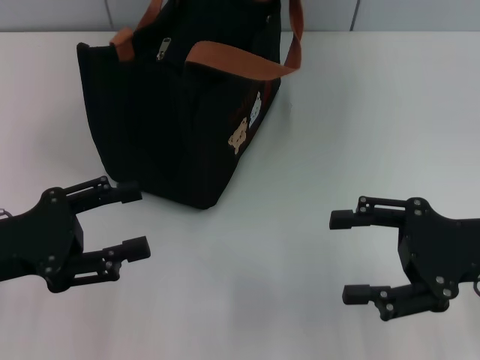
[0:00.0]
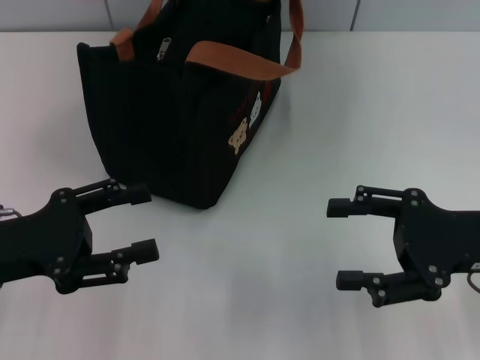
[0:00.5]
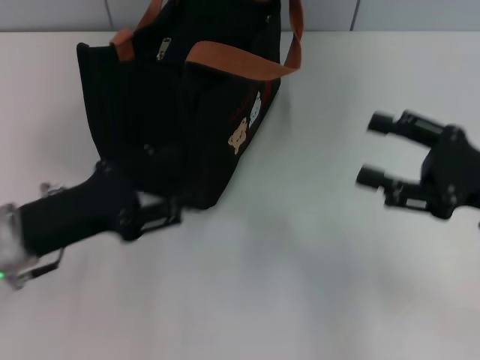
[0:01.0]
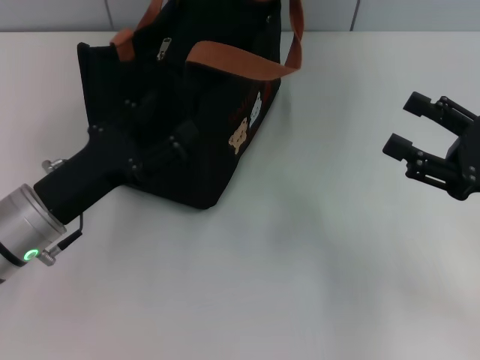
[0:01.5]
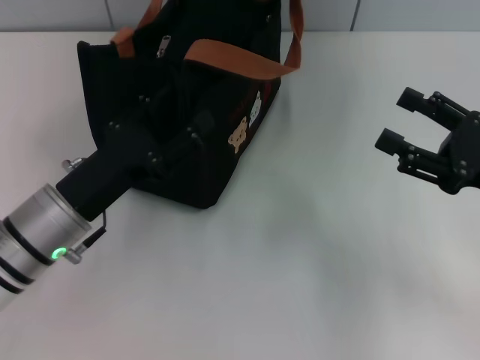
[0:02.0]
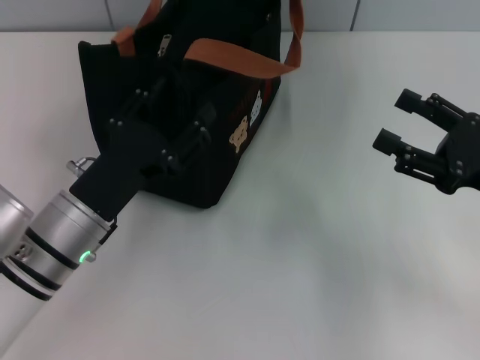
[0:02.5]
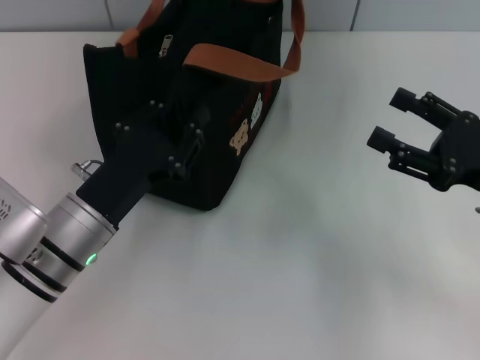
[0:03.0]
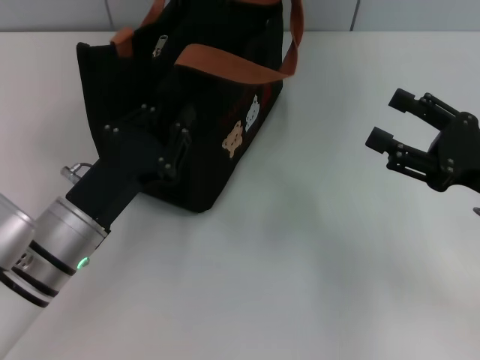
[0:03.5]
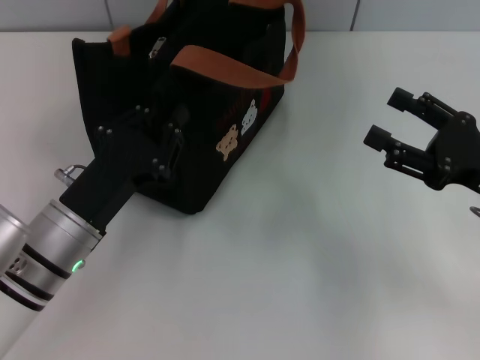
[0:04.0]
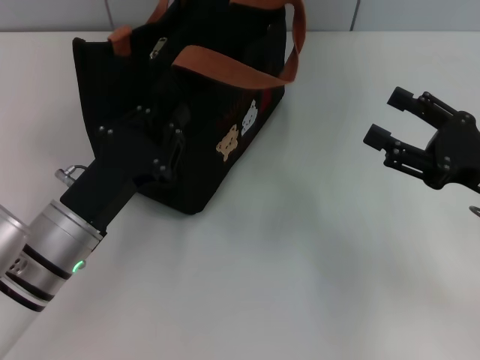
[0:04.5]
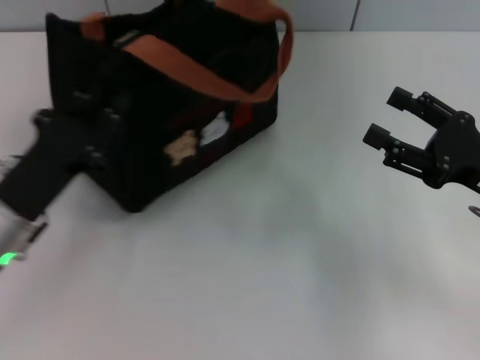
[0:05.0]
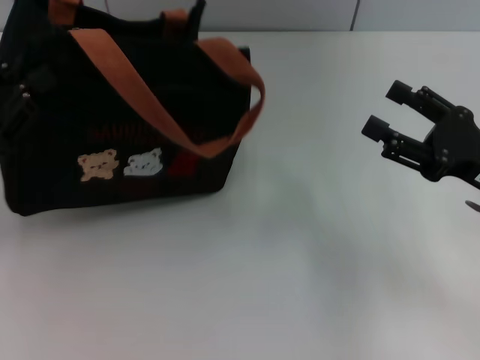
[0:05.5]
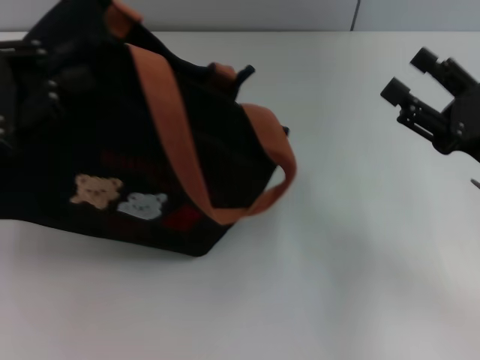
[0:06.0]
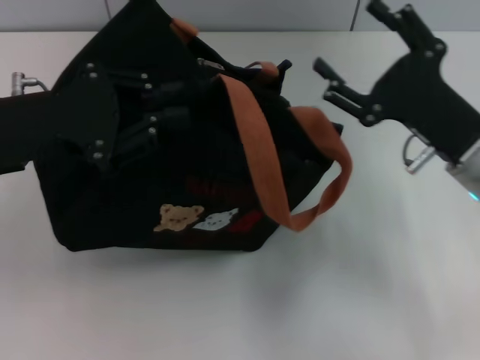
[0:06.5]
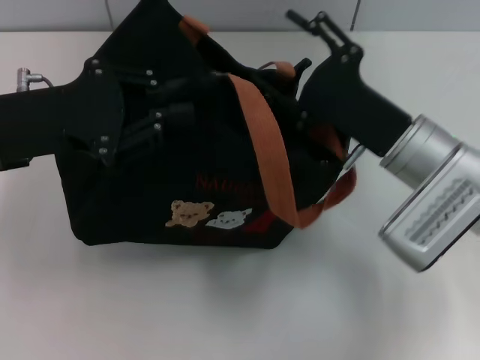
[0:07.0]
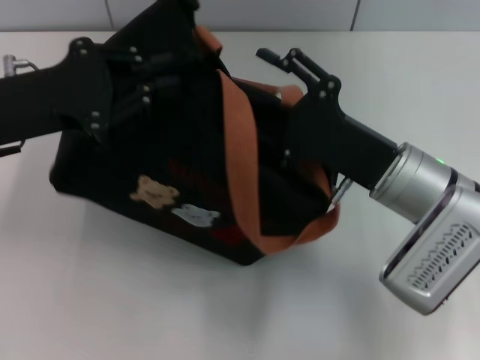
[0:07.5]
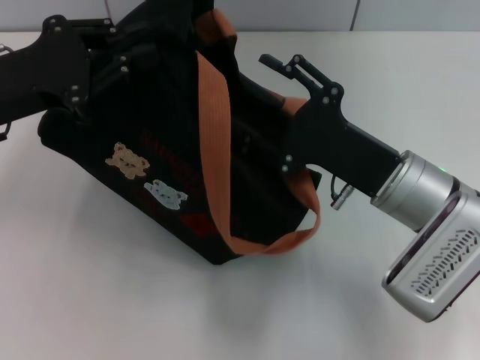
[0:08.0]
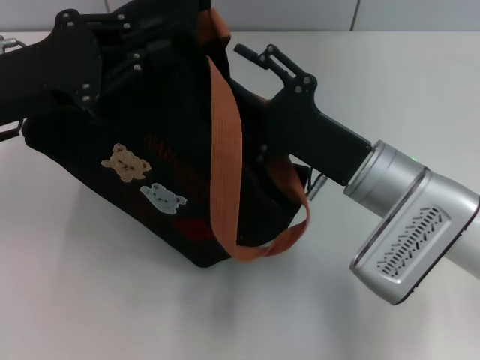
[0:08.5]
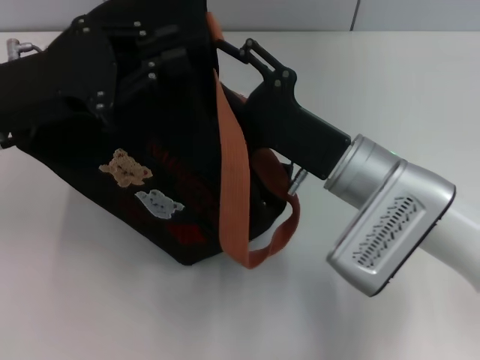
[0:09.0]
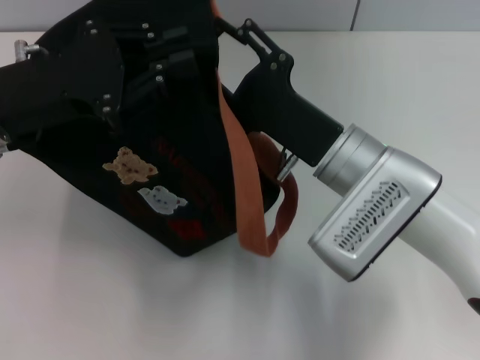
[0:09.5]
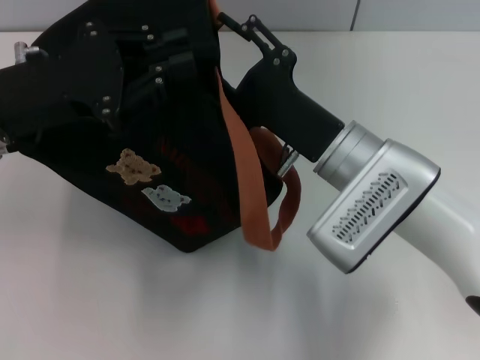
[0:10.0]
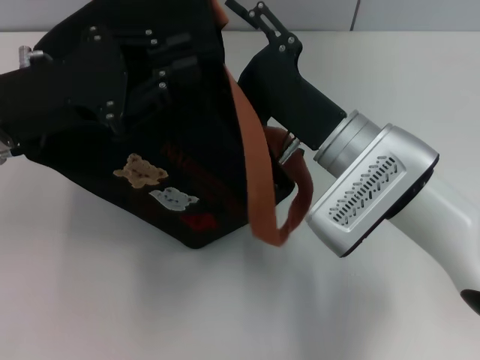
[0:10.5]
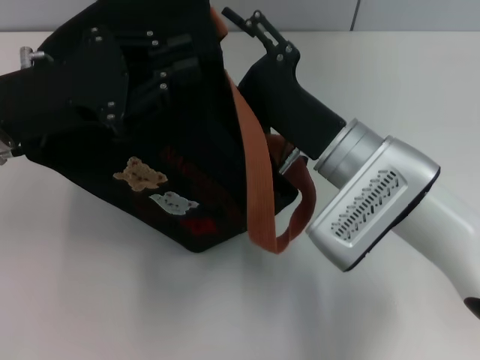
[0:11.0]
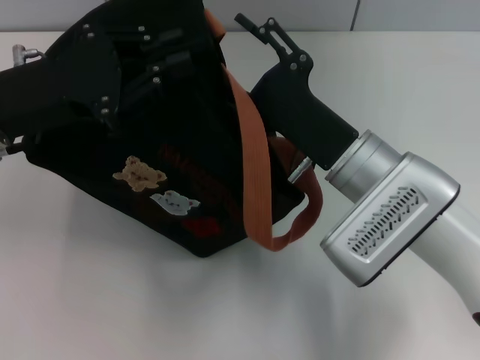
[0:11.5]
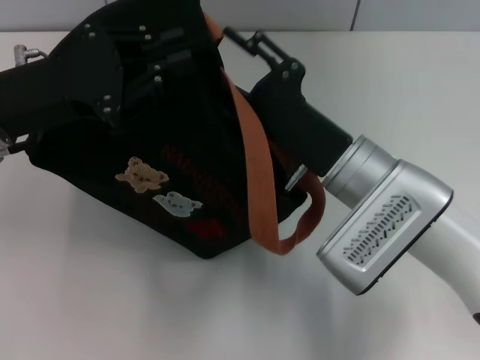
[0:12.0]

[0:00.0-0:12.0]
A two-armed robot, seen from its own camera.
0:00.0 to 0:02.0: The left gripper heads to the right, covering approximately 10 cm.
0:02.0 to 0:04.0: The left gripper closes.
0:04.0 to 0:06.0: The left gripper moves upward and to the left, roughly 20 cm.
0:06.0 to 0:08.0: The right gripper heads to the left, covering some 10 cm. Meanwhile the left gripper changes place by about 5 cm.
0:08.0 to 0:10.0: The right gripper goes some 5 cm to the left.
0:10.0 to 0:12.0: The grippers make only small movements.

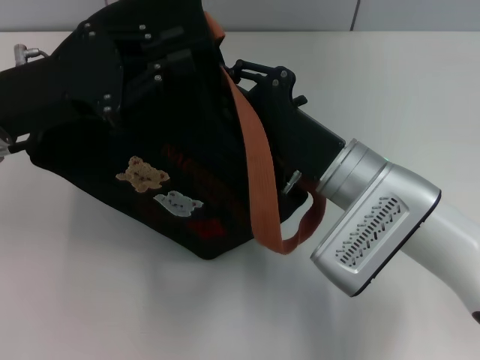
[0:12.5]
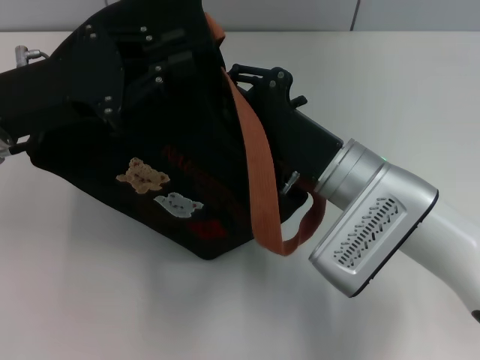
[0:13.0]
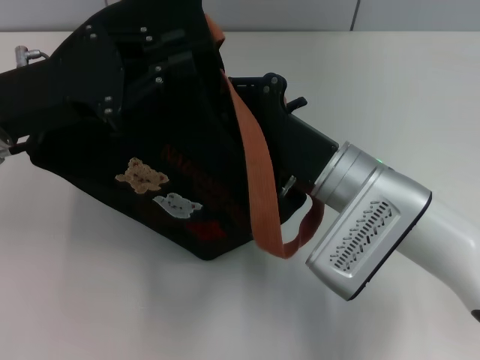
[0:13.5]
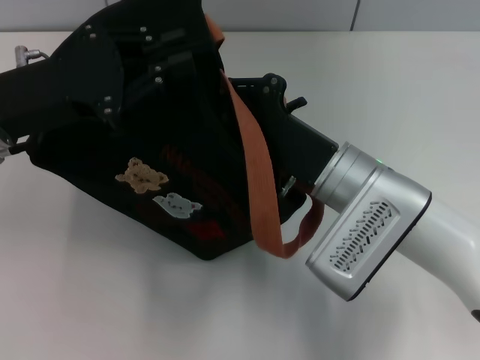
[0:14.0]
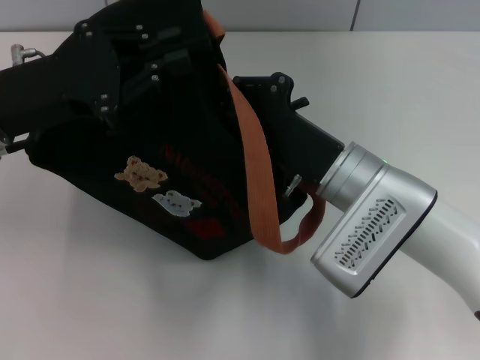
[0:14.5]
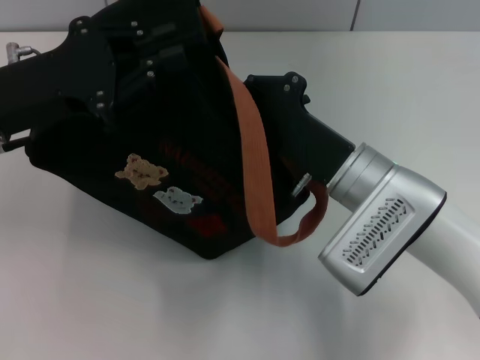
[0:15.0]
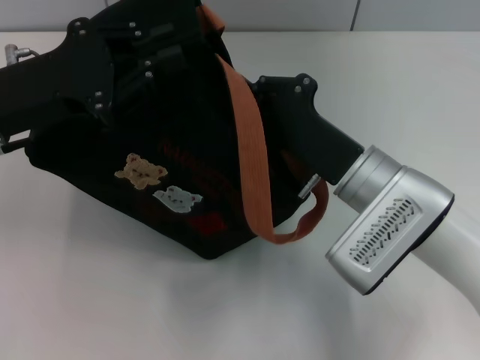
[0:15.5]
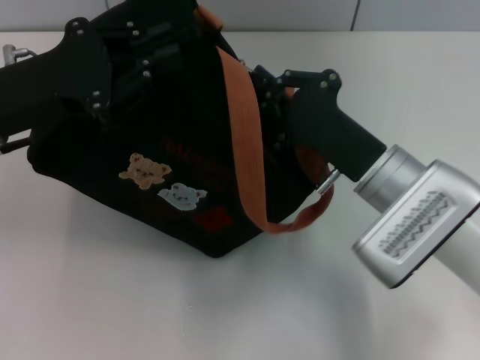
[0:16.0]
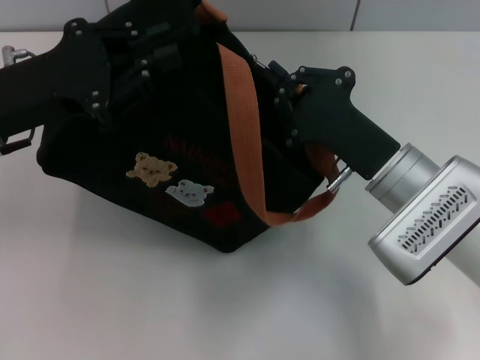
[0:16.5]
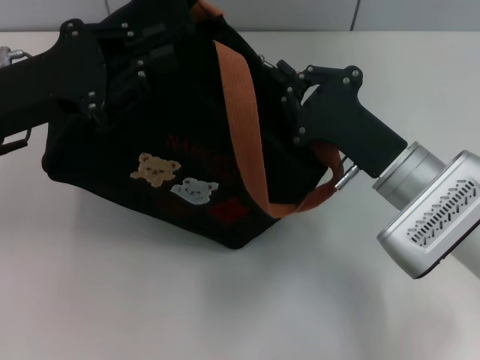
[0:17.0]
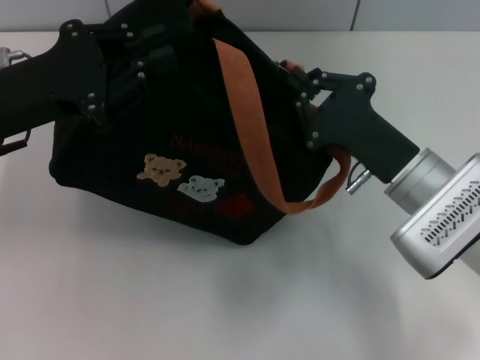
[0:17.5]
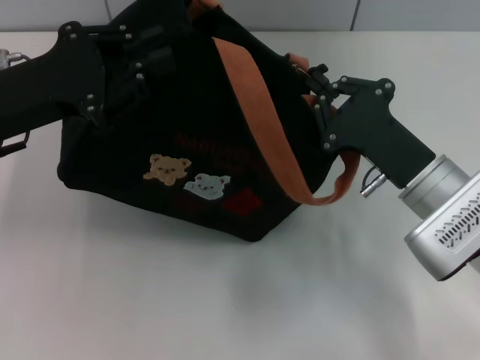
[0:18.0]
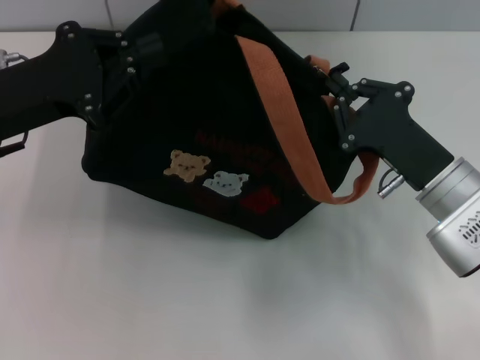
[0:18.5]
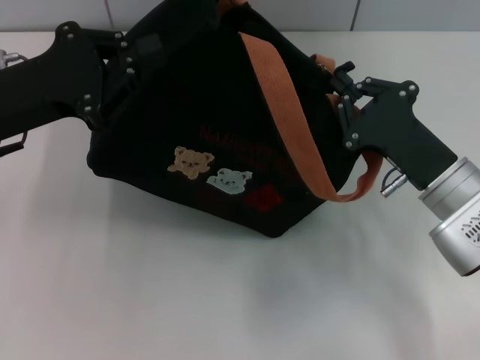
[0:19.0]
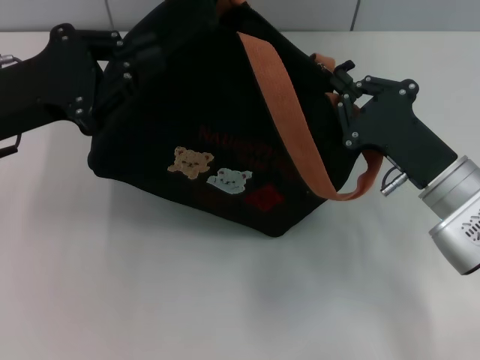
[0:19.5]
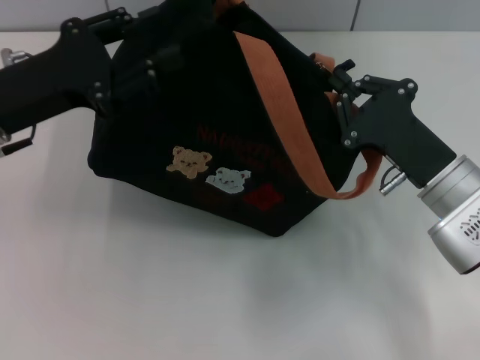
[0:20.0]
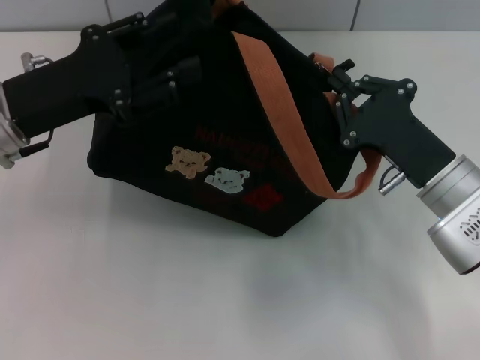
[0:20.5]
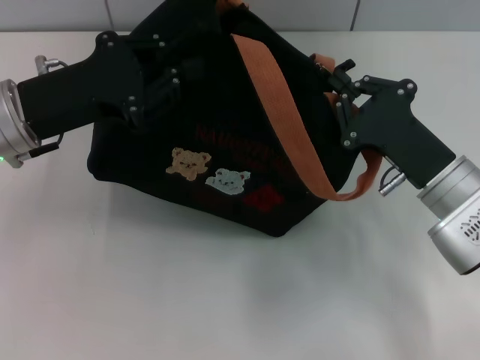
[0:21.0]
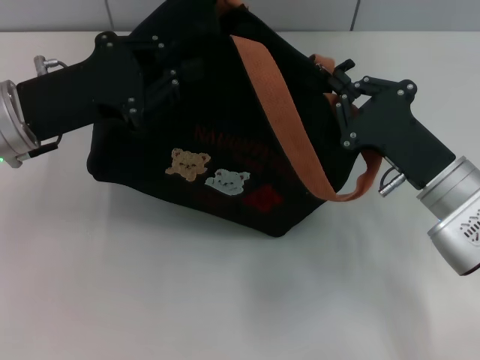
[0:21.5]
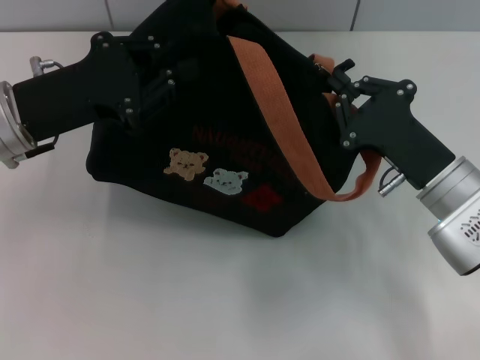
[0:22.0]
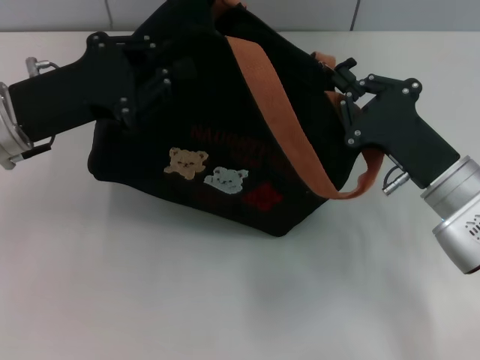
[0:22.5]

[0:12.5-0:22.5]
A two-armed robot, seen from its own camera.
0:12.5 to 0:14.5: The right gripper closes up.
0:16.5 to 0:18.5: The right gripper ends up roughly 5 cm from where it was.
0:18.5 to 0:20.5: The left gripper opens its fingers.
0:20.5 to 0:22.5: The left gripper closes its fingers.

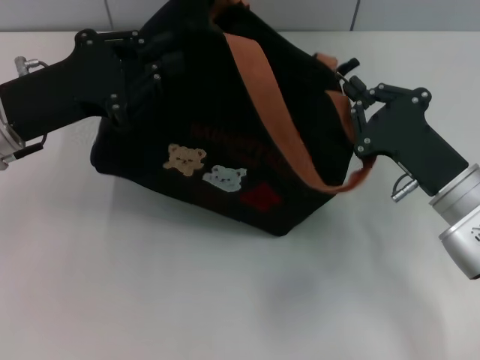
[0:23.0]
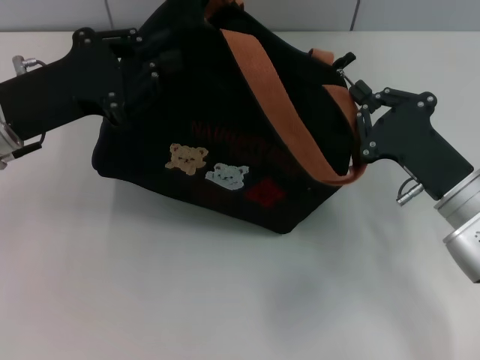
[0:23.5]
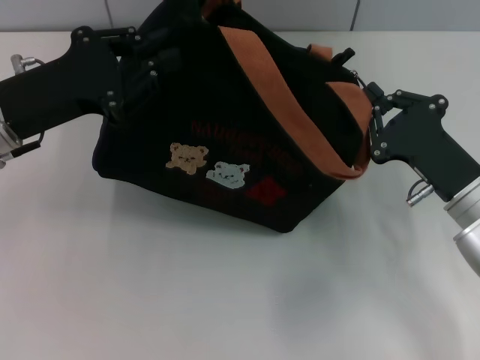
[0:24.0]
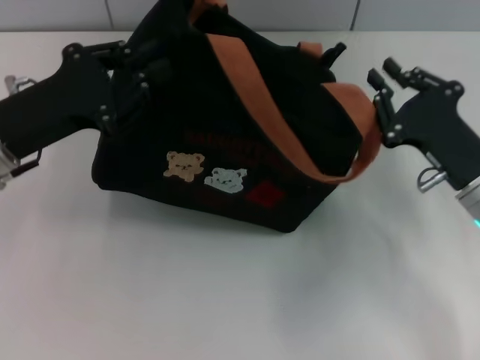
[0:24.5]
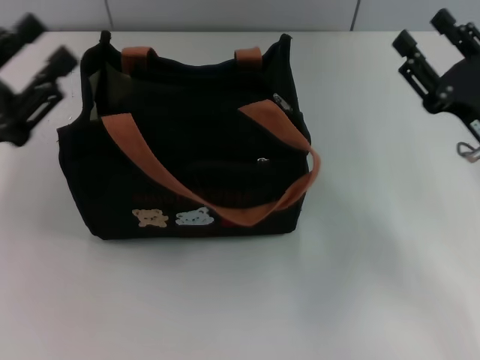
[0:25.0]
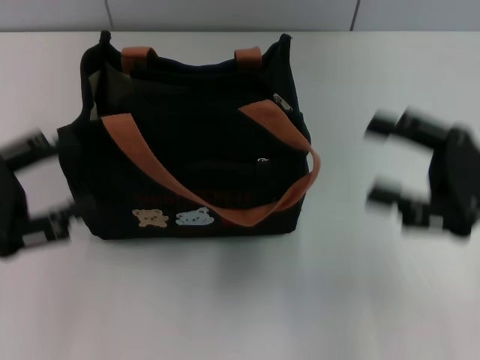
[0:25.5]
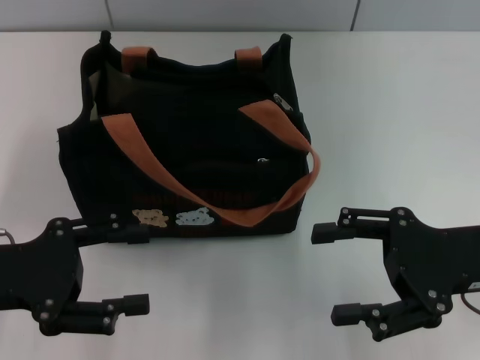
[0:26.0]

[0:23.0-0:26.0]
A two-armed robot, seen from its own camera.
0:23.0 to 0:24.5: The grippers stay close to where they were, moving slightly.
0:24.5 to 0:26.0: The left gripper moves backward, roughly 10 cm, and opens up, while the right gripper is displaced upward by roughly 5 cm, and opens.

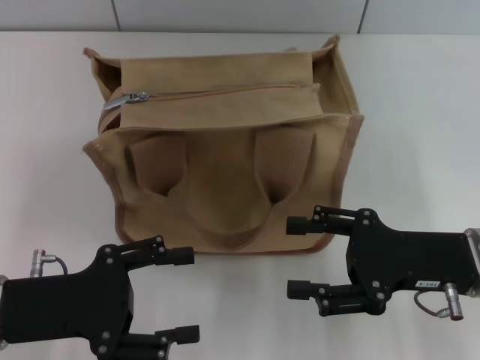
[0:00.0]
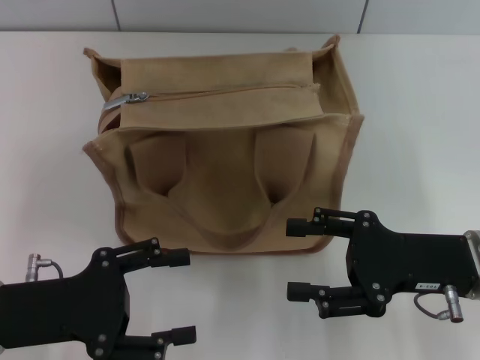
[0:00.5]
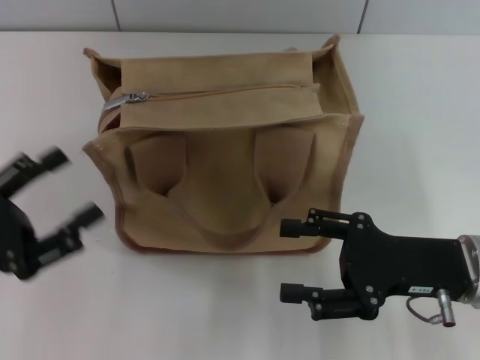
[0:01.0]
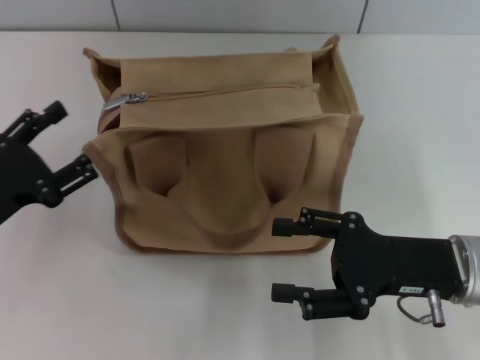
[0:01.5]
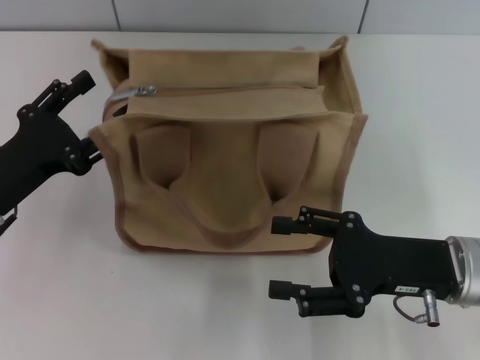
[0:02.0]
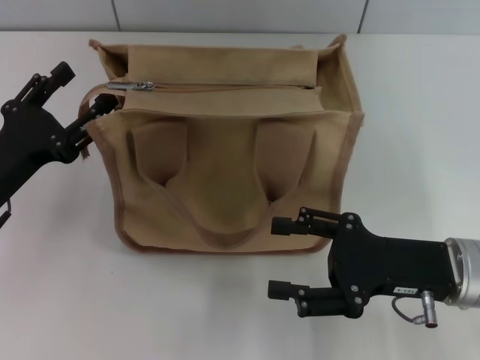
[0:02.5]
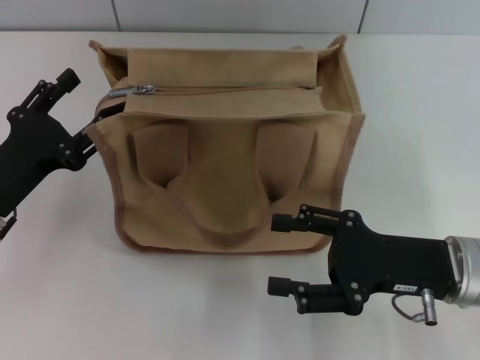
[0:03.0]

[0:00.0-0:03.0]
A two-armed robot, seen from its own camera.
0:00.0 to 0:01.5: The left gripper moves to the left, roughly 5 cm.
0:01.5 to 0:03.0: There are only small adjustments of the grippers.
